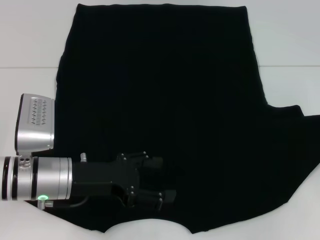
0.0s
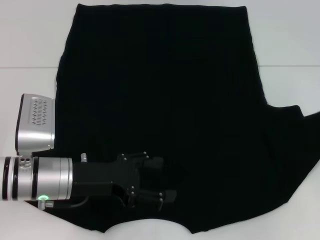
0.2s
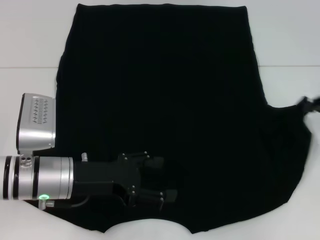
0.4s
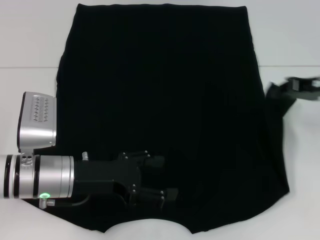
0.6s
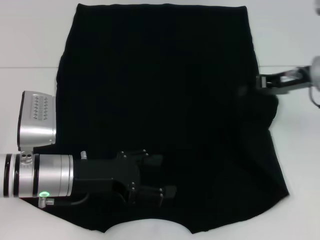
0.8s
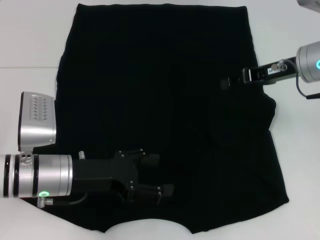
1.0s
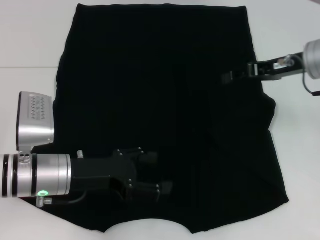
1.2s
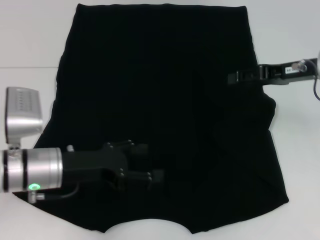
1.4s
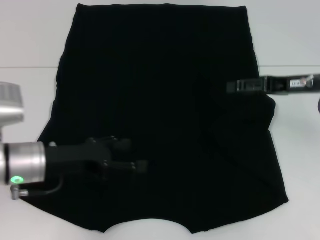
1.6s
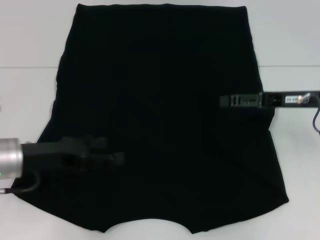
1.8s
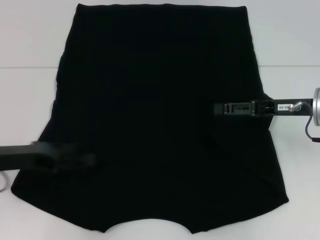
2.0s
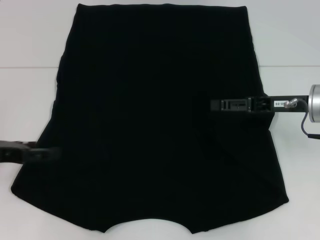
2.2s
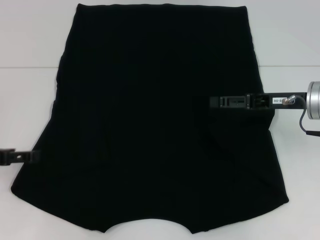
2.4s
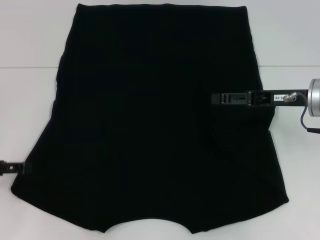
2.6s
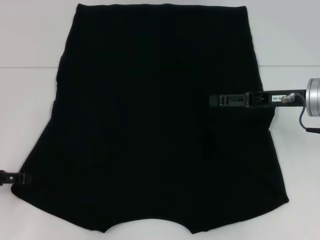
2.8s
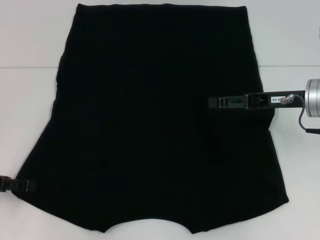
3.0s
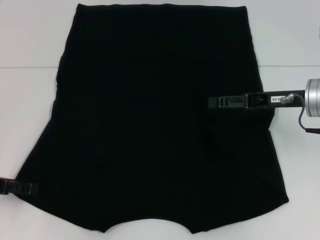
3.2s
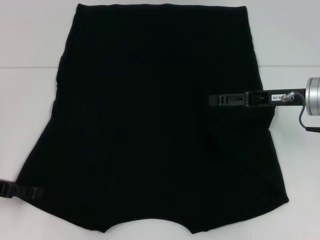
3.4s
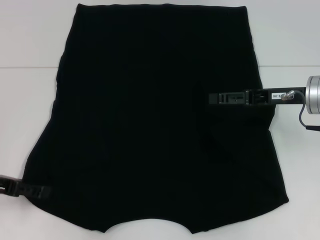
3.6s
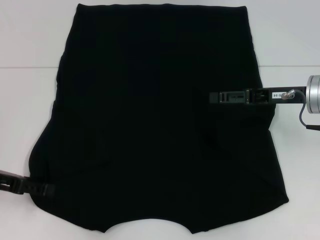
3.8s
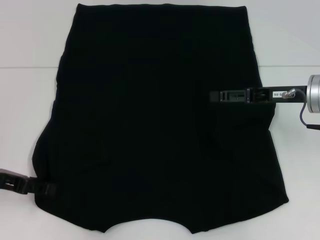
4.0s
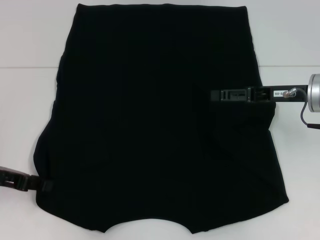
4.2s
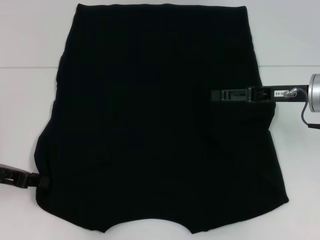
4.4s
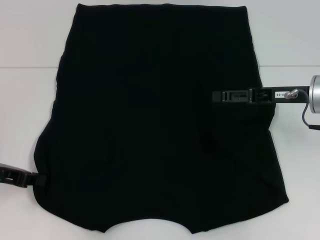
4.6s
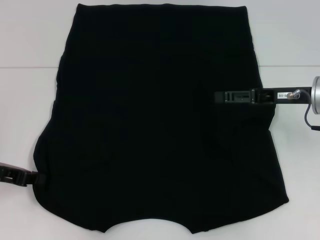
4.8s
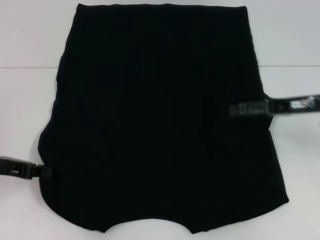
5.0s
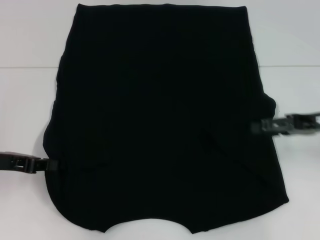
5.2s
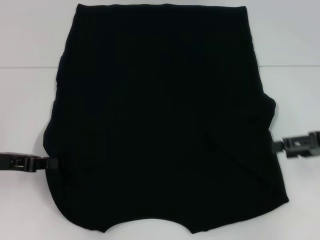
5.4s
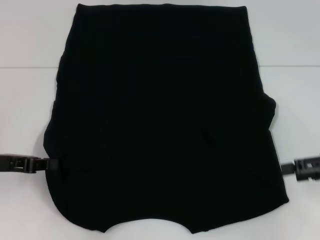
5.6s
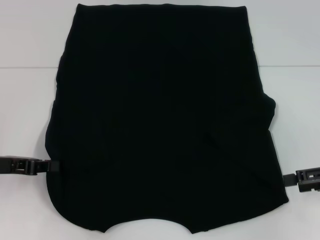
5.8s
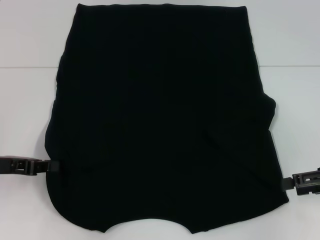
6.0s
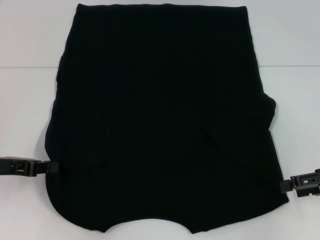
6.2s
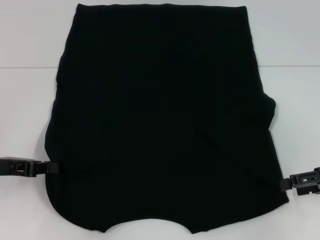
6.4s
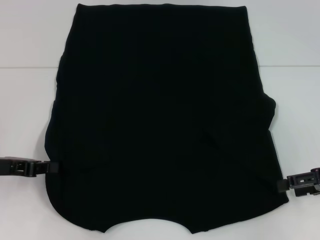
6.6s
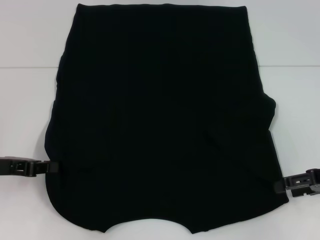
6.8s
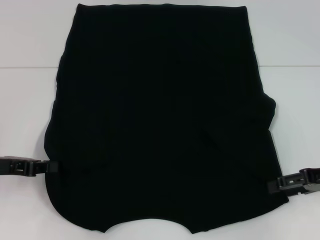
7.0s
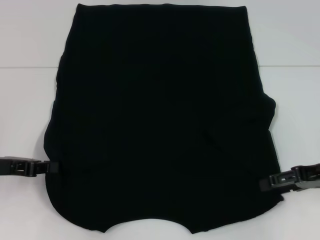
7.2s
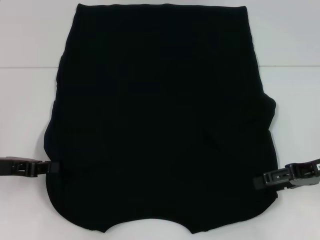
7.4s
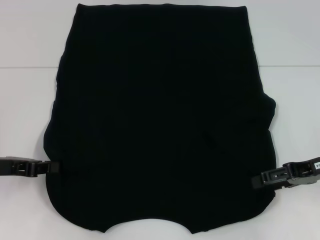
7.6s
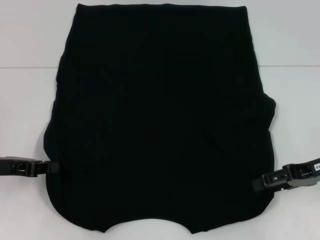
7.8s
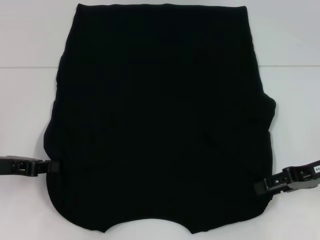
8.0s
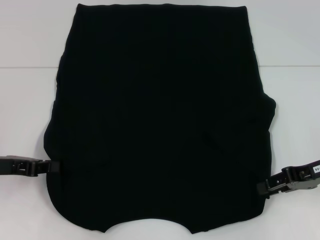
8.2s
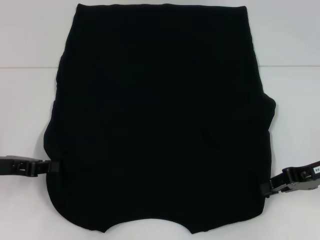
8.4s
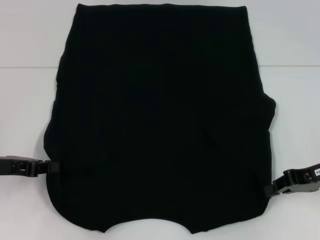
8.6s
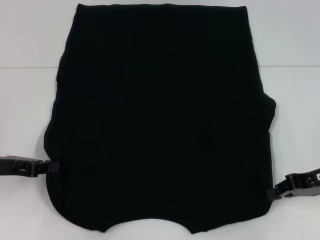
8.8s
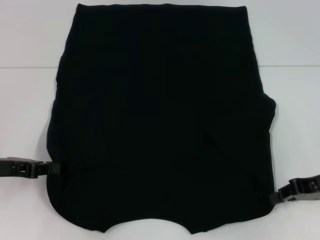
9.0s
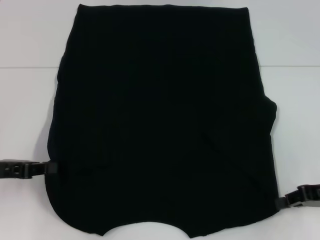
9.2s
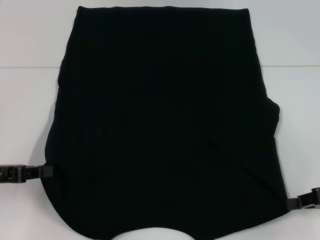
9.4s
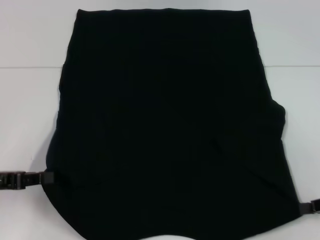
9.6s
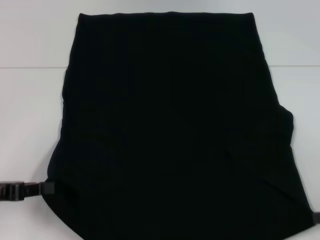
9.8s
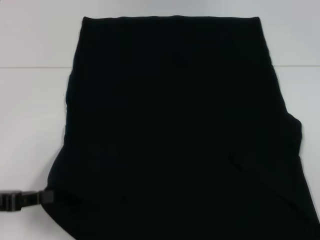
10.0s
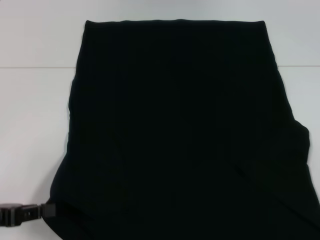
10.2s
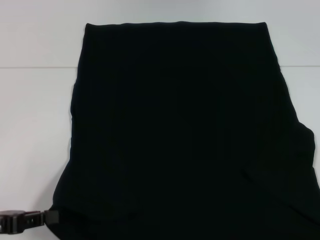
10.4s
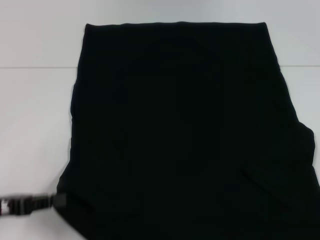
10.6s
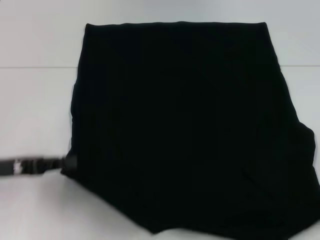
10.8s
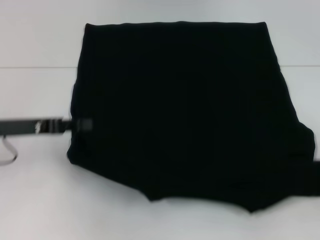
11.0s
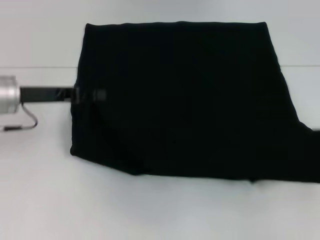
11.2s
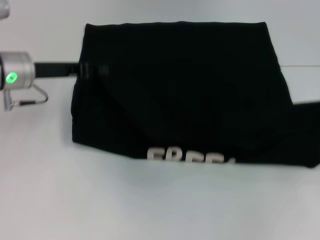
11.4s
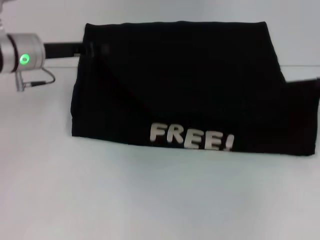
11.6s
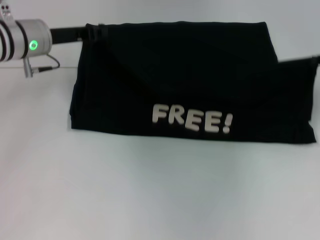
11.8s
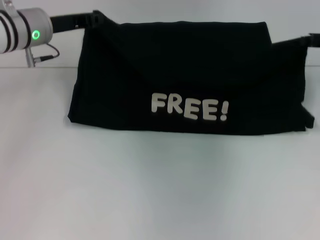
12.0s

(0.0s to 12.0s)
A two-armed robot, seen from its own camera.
Step, 1.0s - 4.4s: Grab the bottom left corner with your left hand.
Step, 4.6s - 8.6s: Grab the bottom right corner with your right hand.
0.0s - 1.6s: The right gripper travels to the left by some 15 cm, and opens.
1.6s - 3.0s: The left gripper is displaced to the left by about 15 cm.
3.0s - 4.4s: The left gripper closes.
4.4s - 6.0s: The left gripper closes; the right gripper heads to the right and backward, covering some 15 cm.
6.0s - 7.6s: The right gripper ends up about 5 cm from where it was.
7.6s - 9.0s: The right gripper closes up.
9.0s - 10.4s: The left gripper shifts some 10 cm backward, while the right gripper is displaced backward and to the right by roughly 15 cm.
10.4s - 12.0s: The left gripper goes some 30 cm forward and to the right, while the right gripper heads forward, covering some 25 cm.

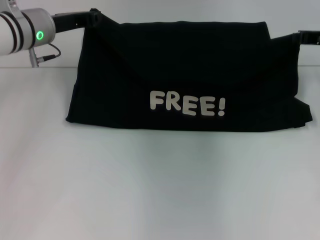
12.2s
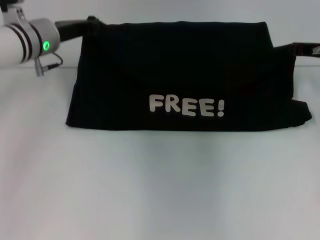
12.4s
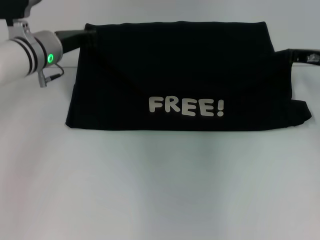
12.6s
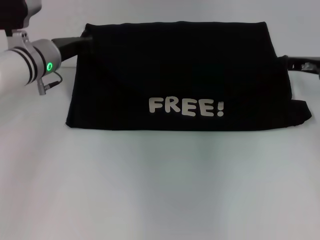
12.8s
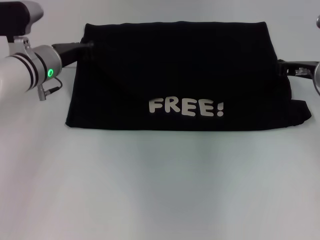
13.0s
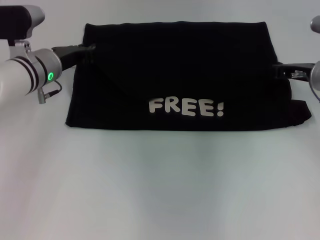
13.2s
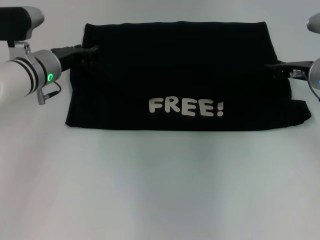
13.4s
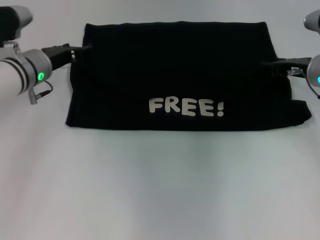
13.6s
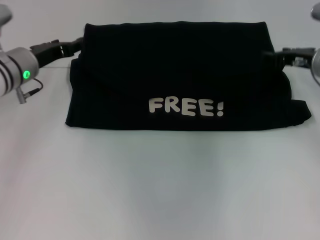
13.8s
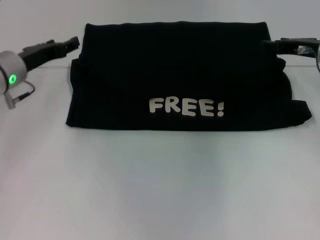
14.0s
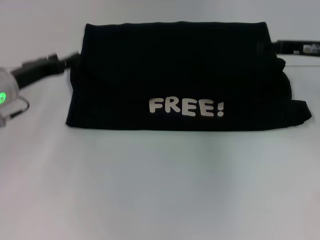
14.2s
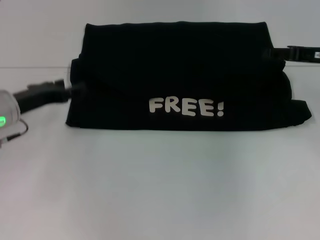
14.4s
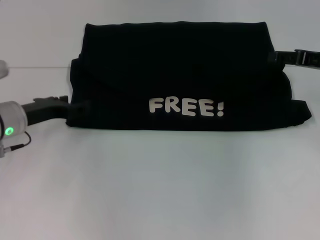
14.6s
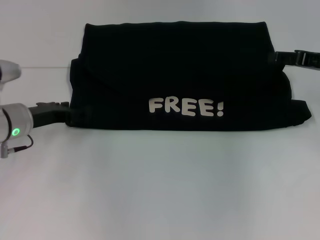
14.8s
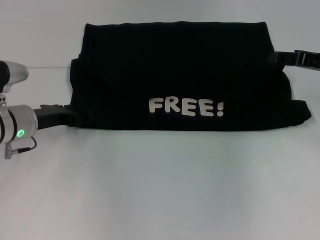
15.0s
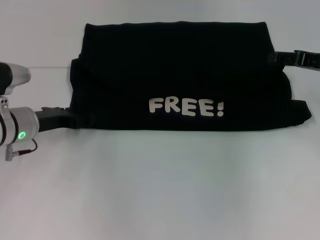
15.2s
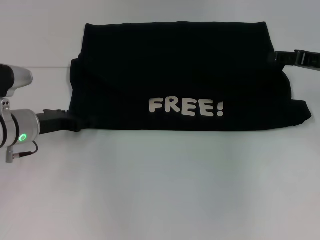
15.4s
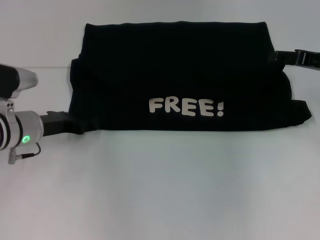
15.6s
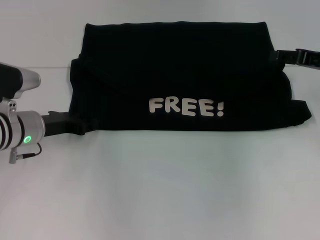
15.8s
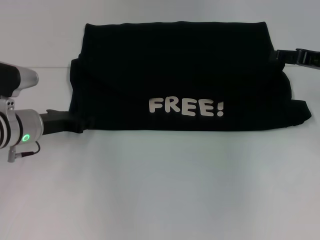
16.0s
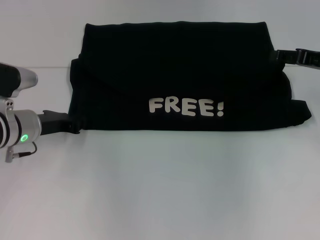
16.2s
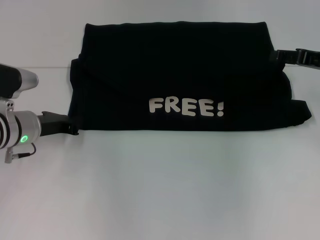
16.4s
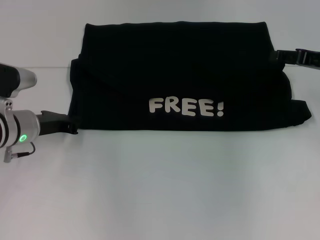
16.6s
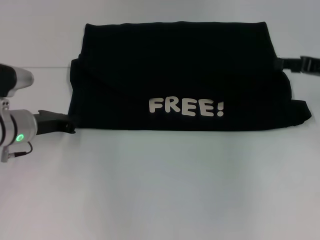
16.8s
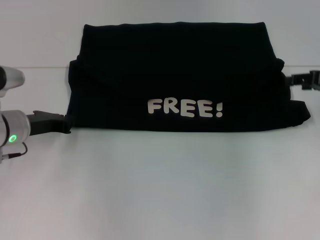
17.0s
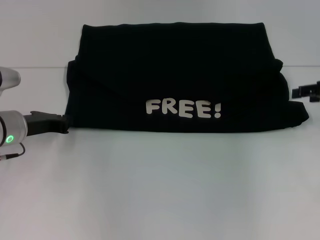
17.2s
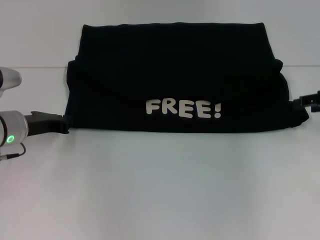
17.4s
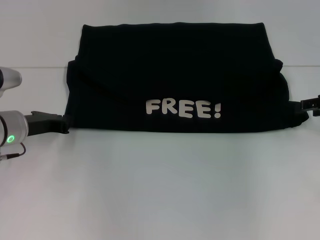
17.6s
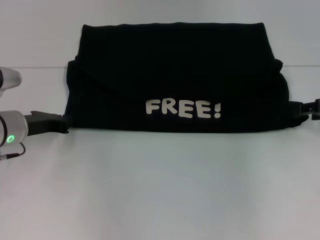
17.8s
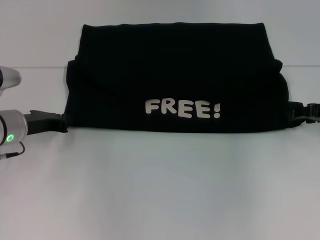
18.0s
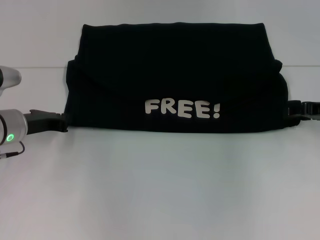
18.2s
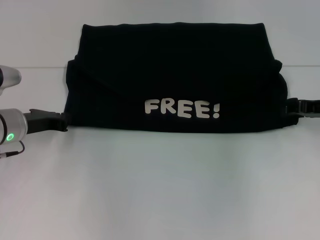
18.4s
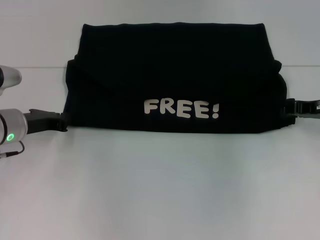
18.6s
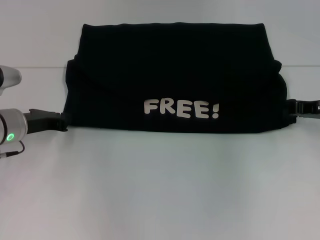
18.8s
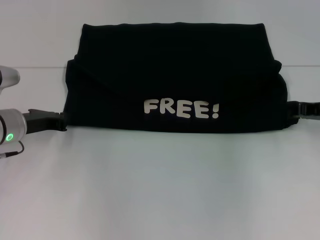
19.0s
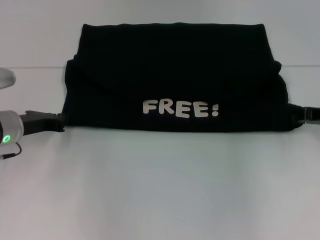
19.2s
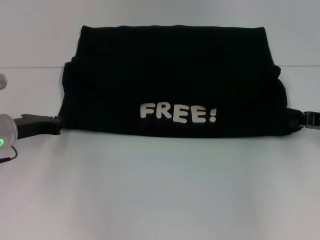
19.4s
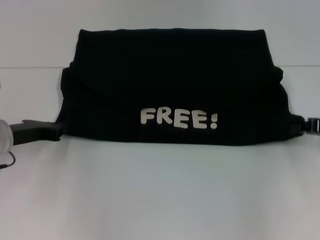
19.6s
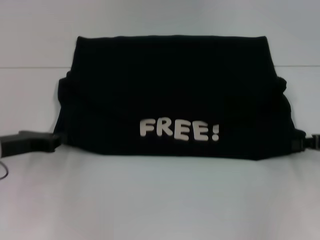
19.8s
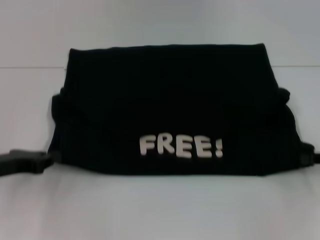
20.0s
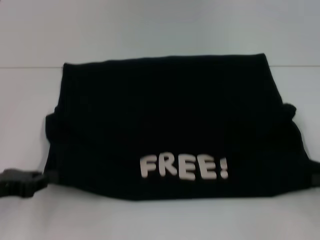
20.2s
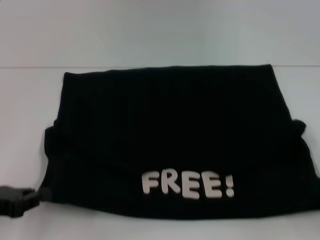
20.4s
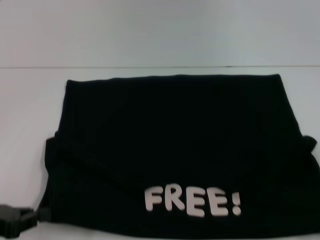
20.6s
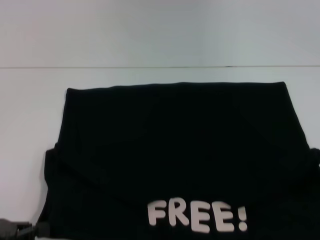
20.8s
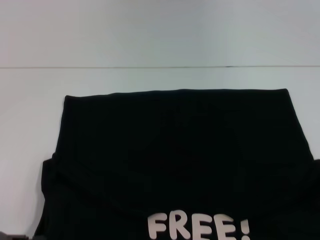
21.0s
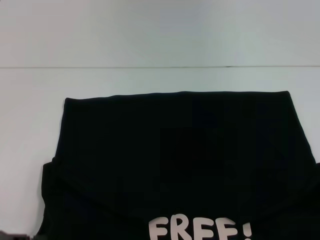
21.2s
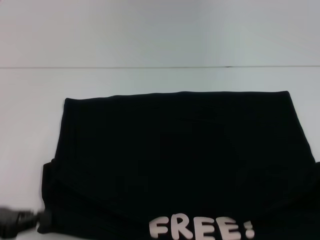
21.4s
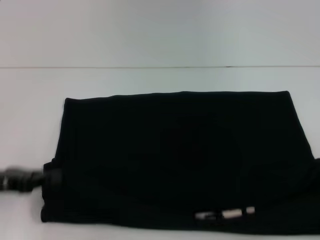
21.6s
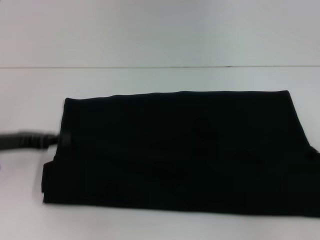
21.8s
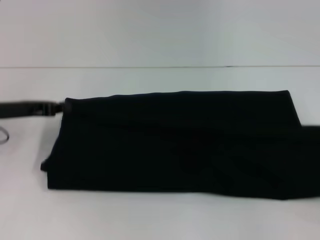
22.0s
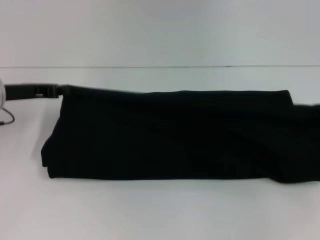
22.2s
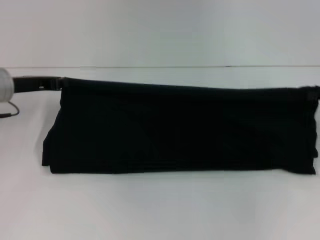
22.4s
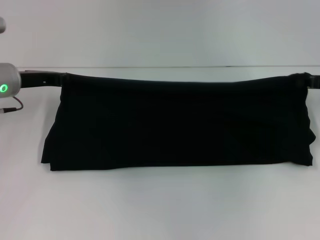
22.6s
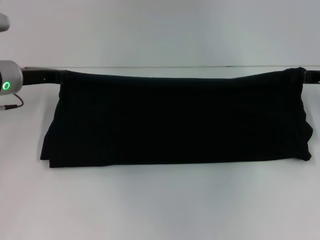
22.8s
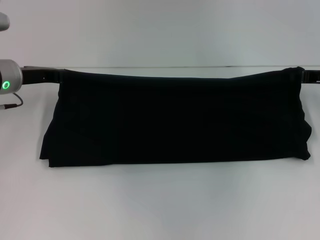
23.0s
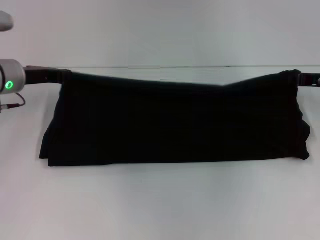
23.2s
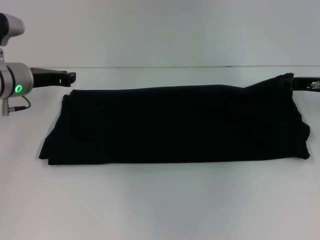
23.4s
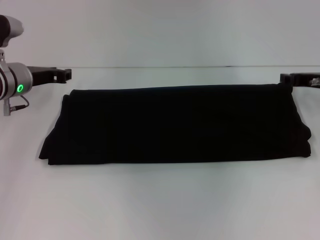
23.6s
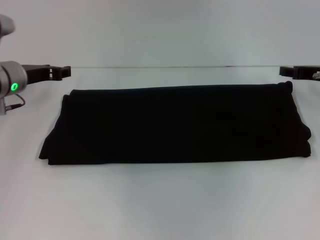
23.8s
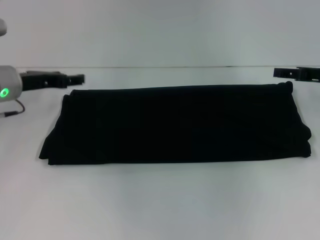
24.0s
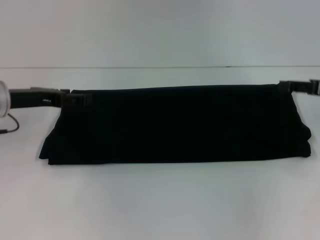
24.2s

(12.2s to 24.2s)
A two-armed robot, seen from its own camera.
Step, 13.8s - 21.0s: Pull the clothes with your left hand.
Step, 13.8s - 21.0s: Pull the clothes with your right hand.
Step, 21.2s - 23.6s: Fold the clothes with your right hand.
12.2s - 13.8s: The right gripper moves about 5 cm, and opens; the left gripper heads downward, covering about 5 cm, and opens.
13.8s - 15.2s: The right gripper ends up approximately 5 cm from where it was, while the left gripper heads backward, covering some 5 cm.
15.2s - 16.6s: The left gripper closes its fingers.
18.2s - 19.8s: The two grippers go approximately 5 cm backward. The right gripper closes up.
19.8s - 21.2s: The right gripper shifts about 20 cm backward and to the right, while the left gripper goes about 15 cm backward.
21.2s - 22.6s: Both grippers travel together forward, about 25 cm.
22.6s - 24.2s: The right gripper opens up; the left gripper moves approximately 5 cm, and opens up.
